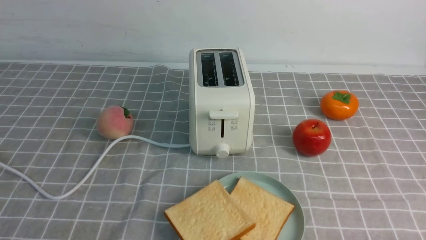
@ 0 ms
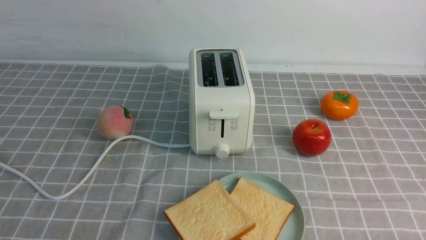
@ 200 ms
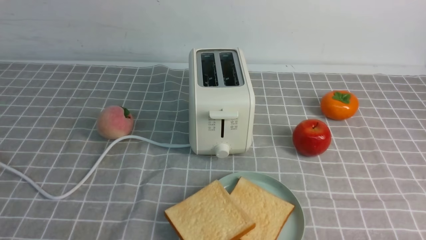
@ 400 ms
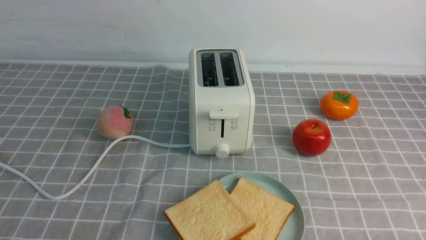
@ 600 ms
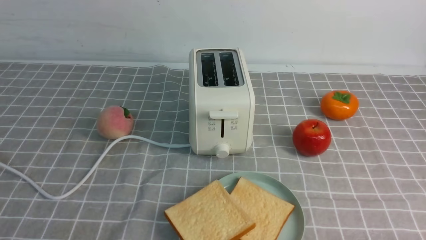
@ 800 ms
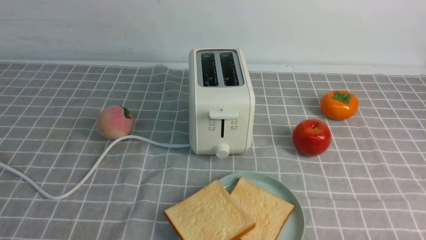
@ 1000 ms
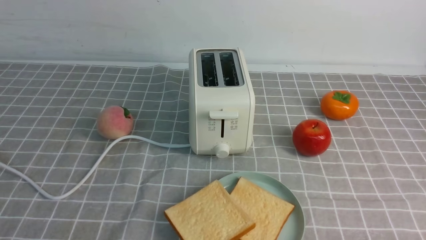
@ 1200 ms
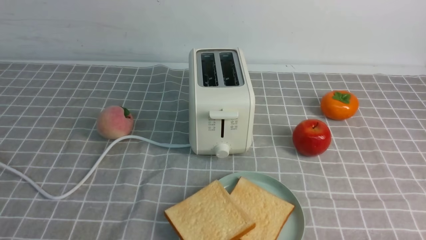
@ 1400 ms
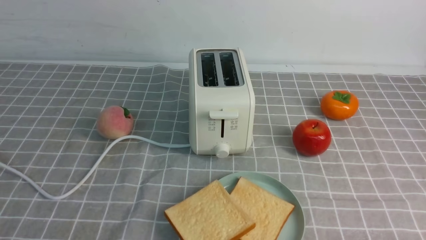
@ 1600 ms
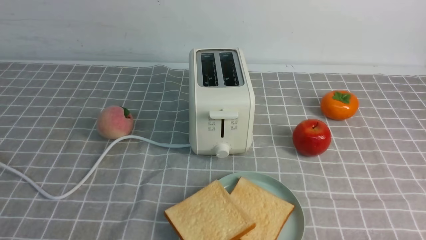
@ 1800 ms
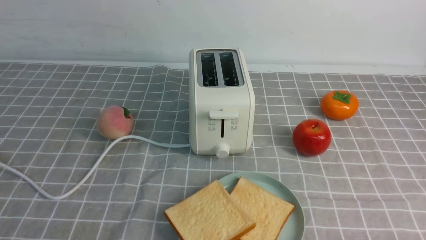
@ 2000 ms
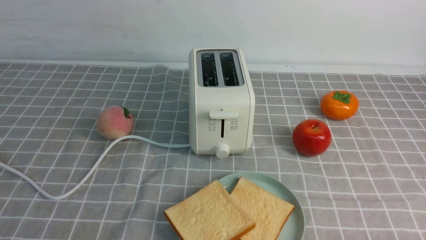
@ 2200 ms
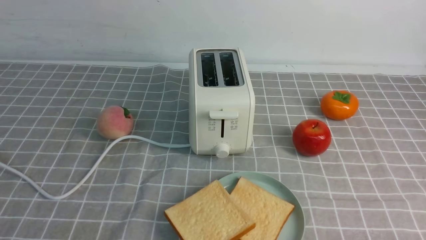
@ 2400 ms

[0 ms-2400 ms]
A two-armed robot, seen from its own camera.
Task of the whole recording: take toasted bread from bread machine on grey coffee table place on plate.
0 ms to 2400 ms: Neither gripper changes place.
